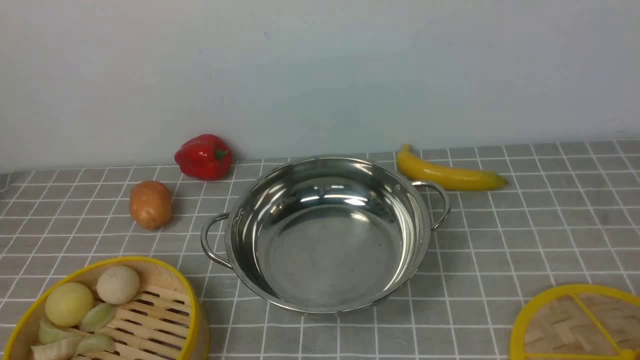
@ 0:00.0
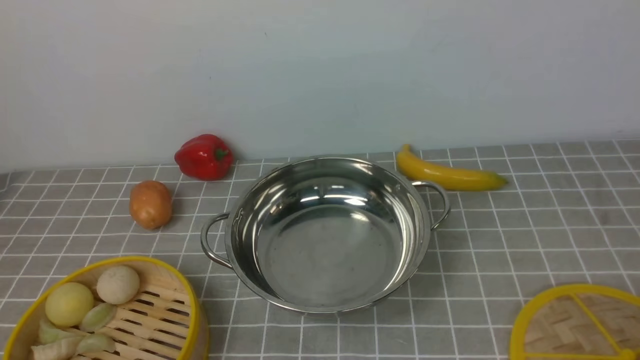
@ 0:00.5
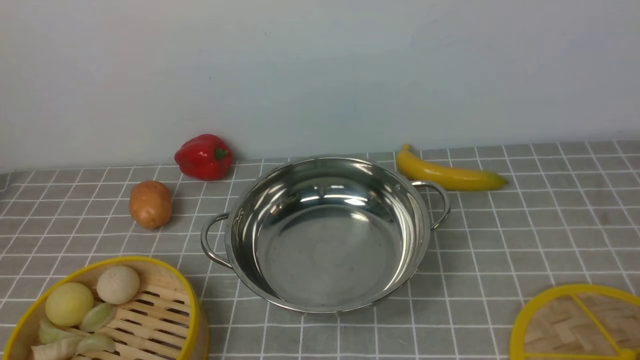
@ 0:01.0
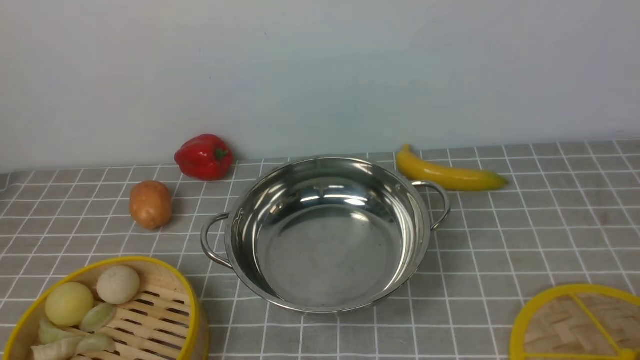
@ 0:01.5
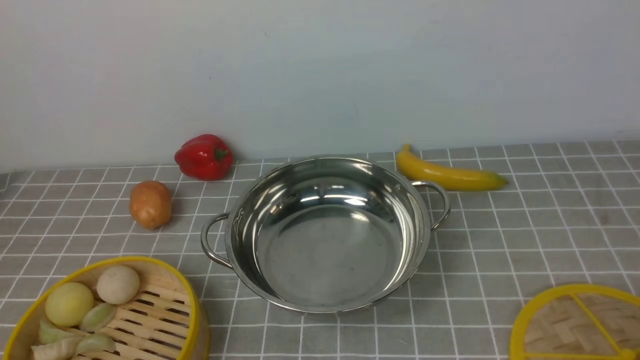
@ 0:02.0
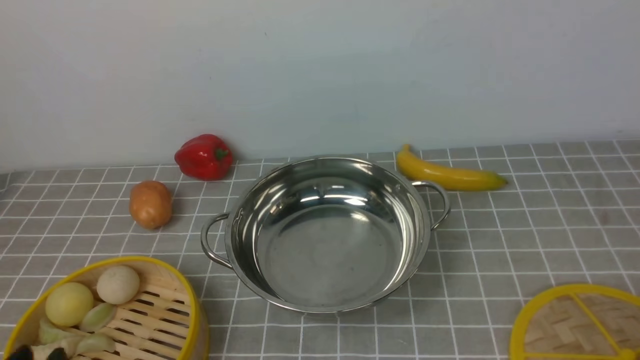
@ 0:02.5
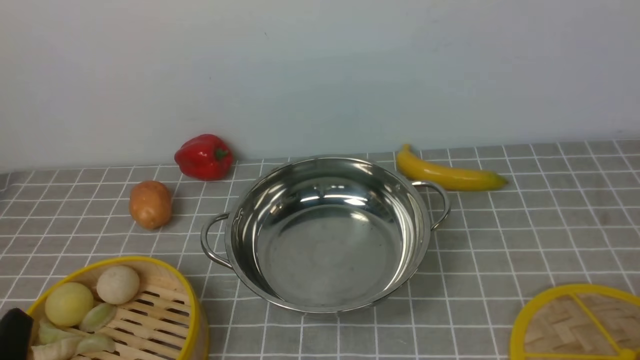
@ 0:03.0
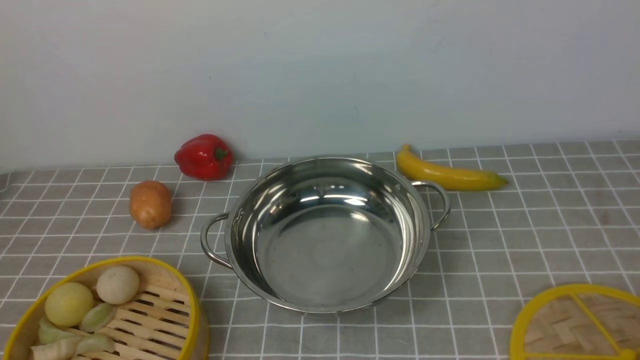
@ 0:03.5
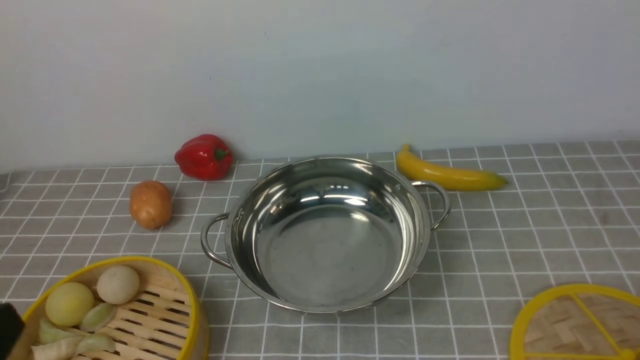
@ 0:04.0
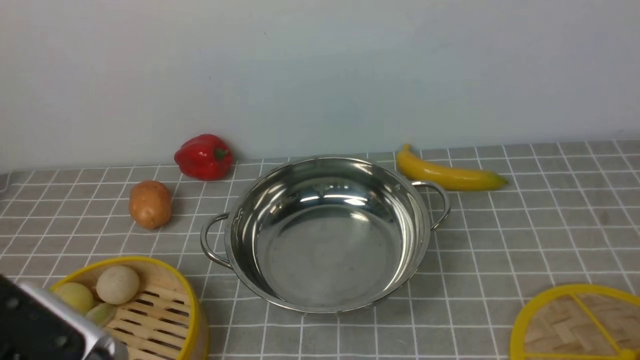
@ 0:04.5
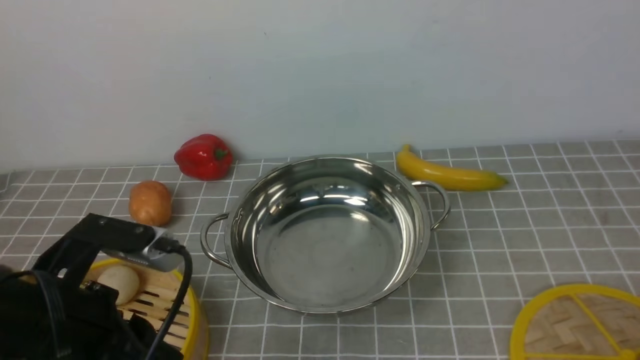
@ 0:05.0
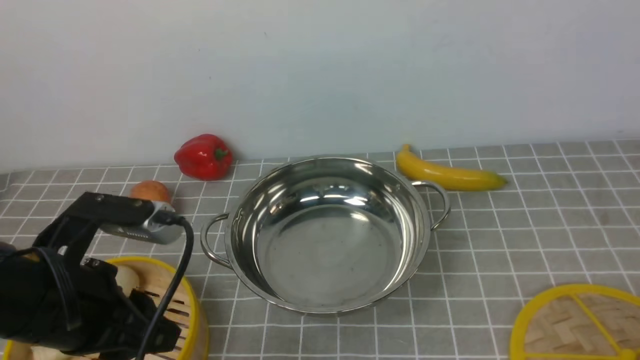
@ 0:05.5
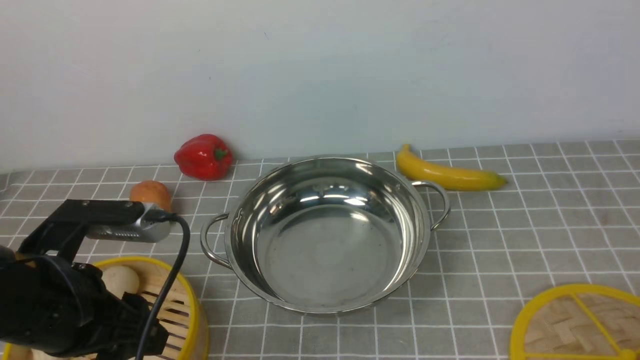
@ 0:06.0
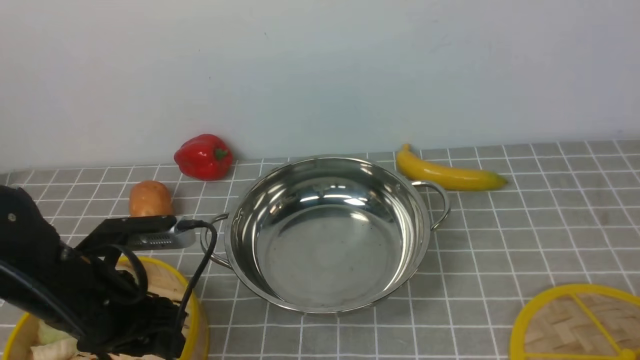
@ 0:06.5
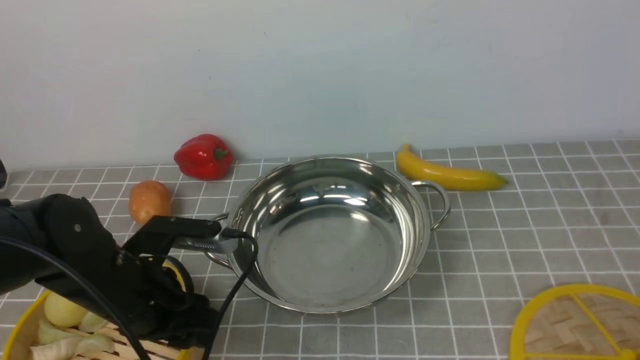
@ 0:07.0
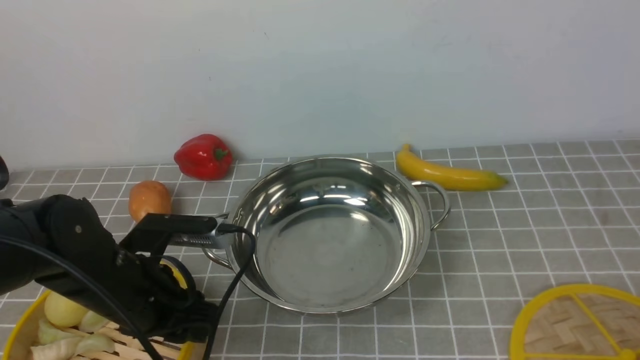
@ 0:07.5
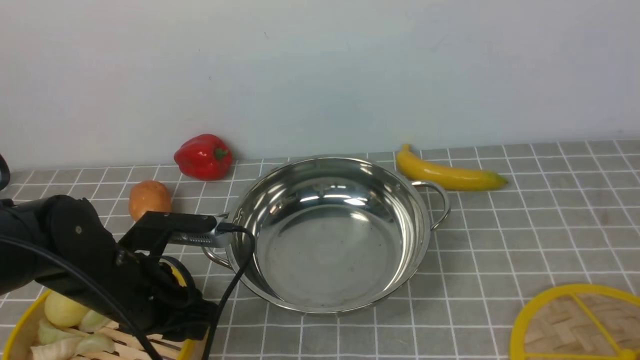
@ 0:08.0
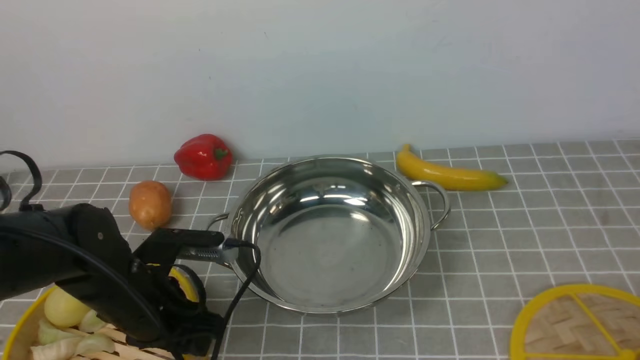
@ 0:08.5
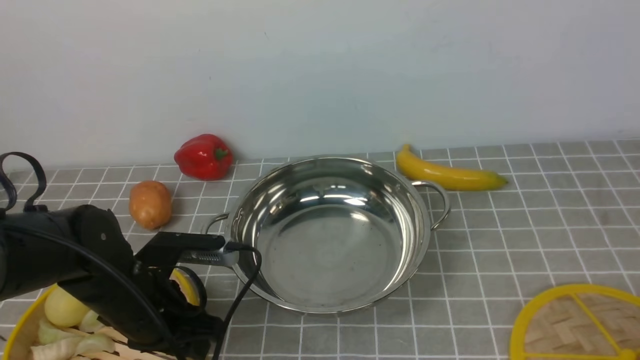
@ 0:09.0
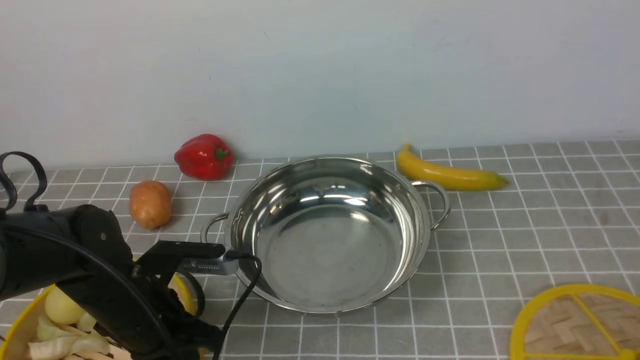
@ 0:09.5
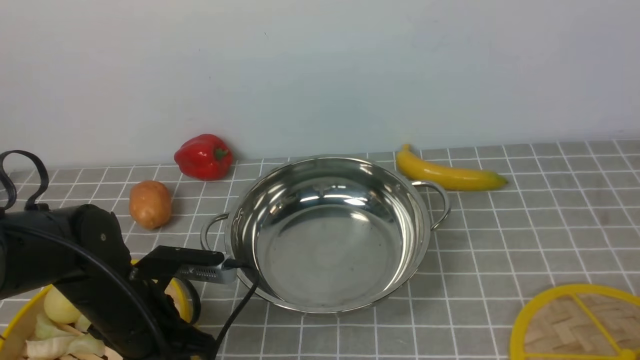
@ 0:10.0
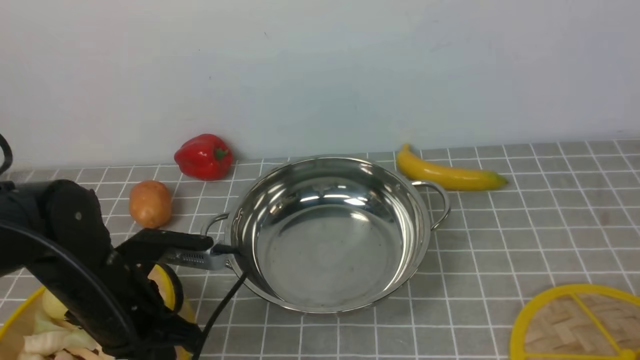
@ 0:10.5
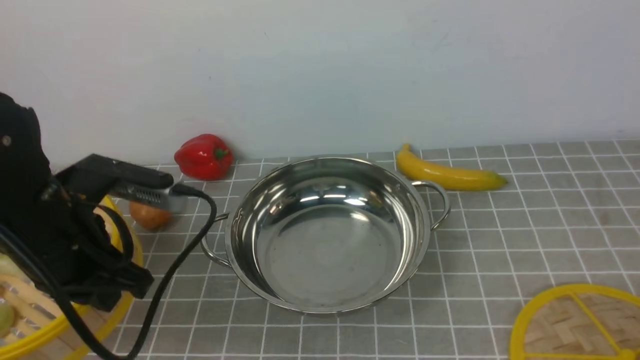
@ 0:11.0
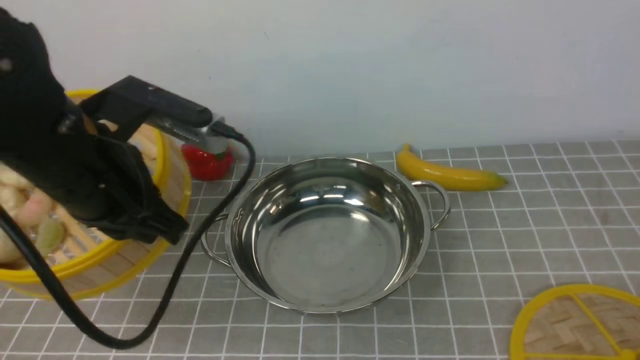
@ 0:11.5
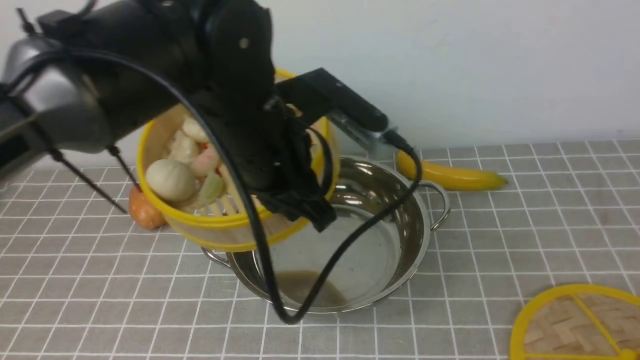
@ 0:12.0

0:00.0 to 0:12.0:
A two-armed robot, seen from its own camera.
Task of the whole recording: place the steamer in the pot on the grey tablecloth, and put the lid on the steamer.
Step, 0:00.0 to 0:10.5: use the left arm to lift the steamer closest to it.
0:04.0 to 0:06.0: The left gripper heads forward, covering about 15 cm, and opens.
0:06.0 to 0:08.0: The left gripper moves downward and forward, some 10 cm.
0:08.0 to 0:10.0: The left gripper closes.
0:10.0 to 0:12.0: The left gripper is displaced upward and to the right by roughly 20 cm.

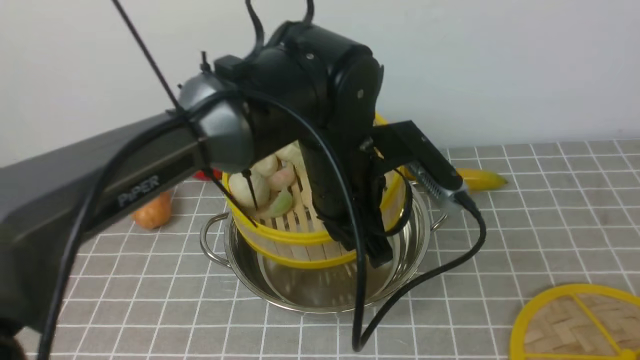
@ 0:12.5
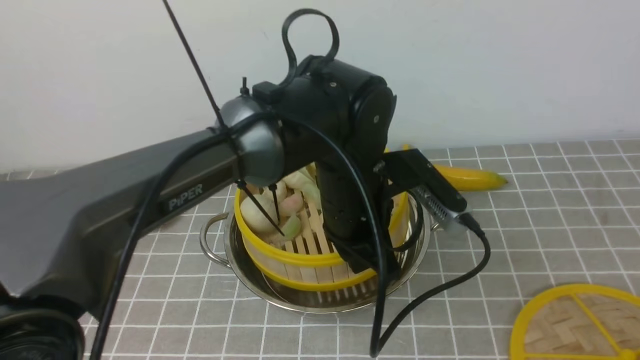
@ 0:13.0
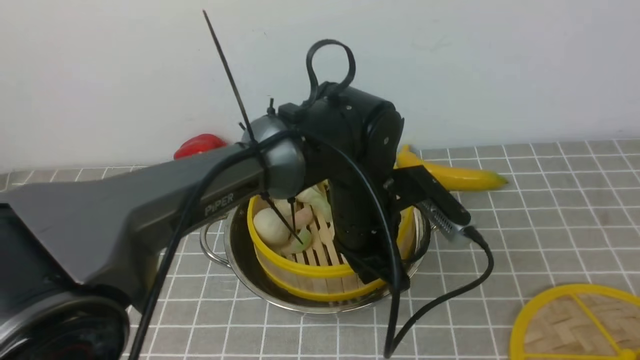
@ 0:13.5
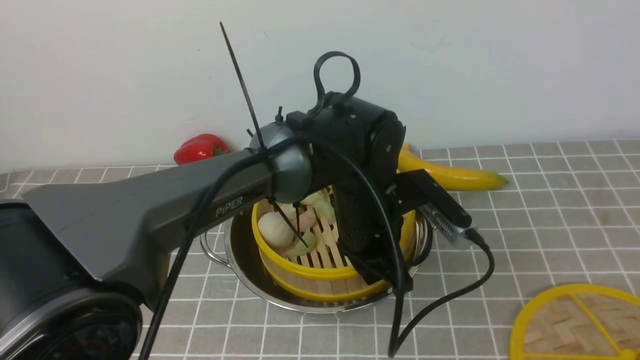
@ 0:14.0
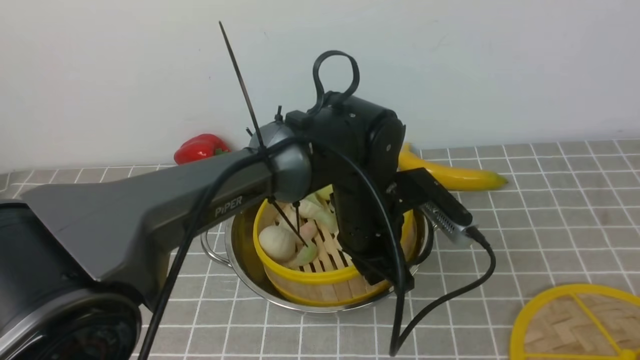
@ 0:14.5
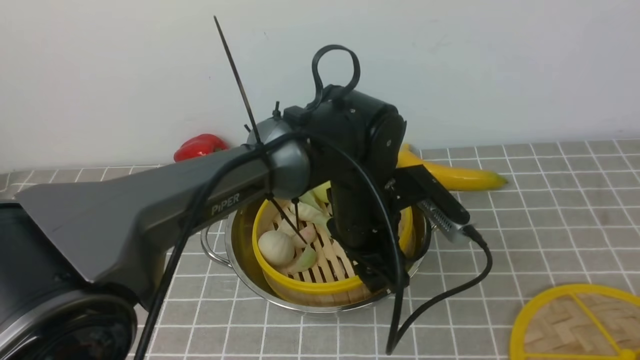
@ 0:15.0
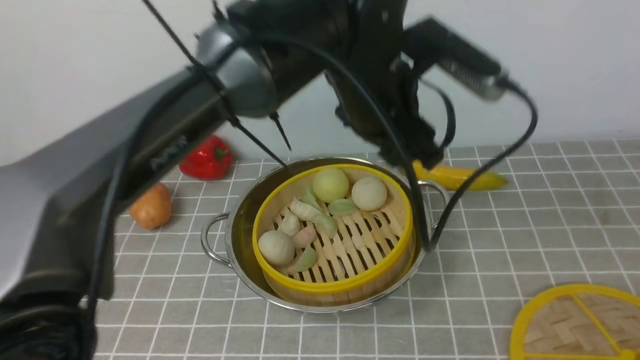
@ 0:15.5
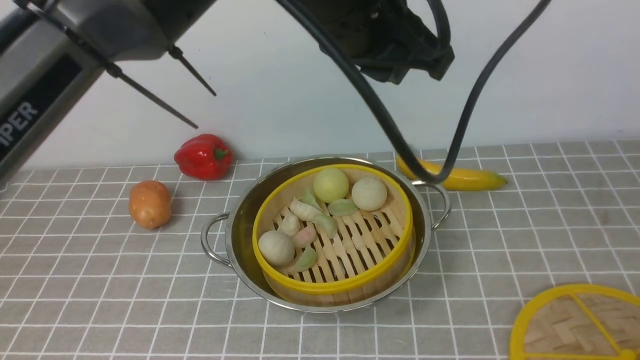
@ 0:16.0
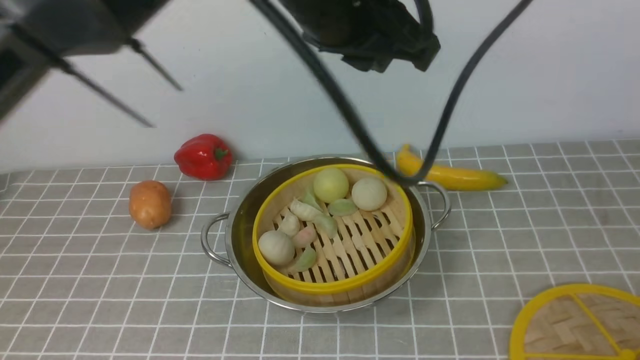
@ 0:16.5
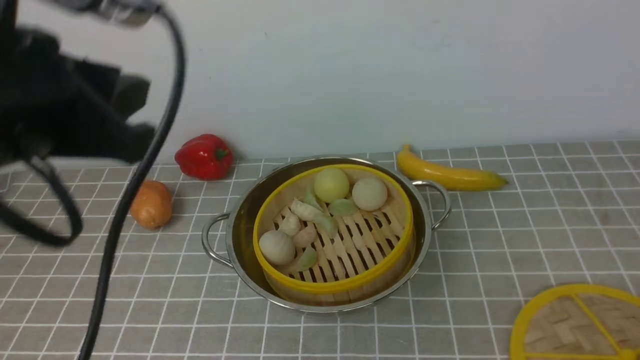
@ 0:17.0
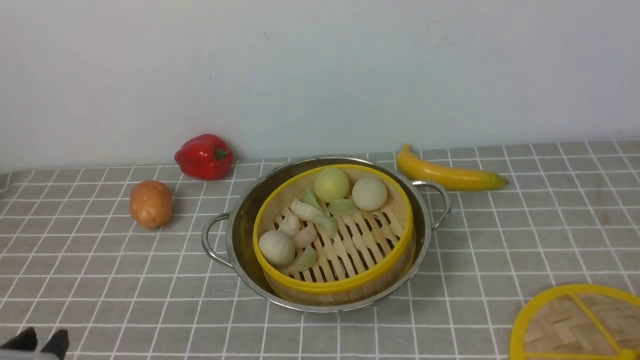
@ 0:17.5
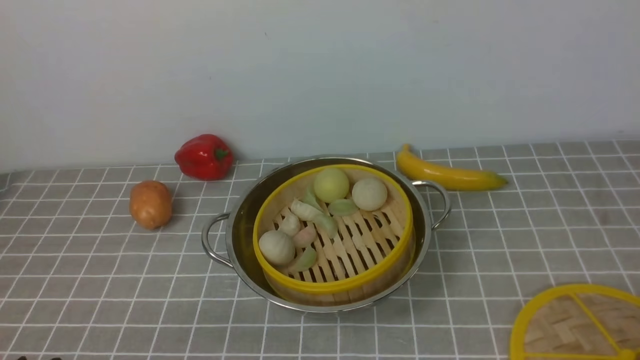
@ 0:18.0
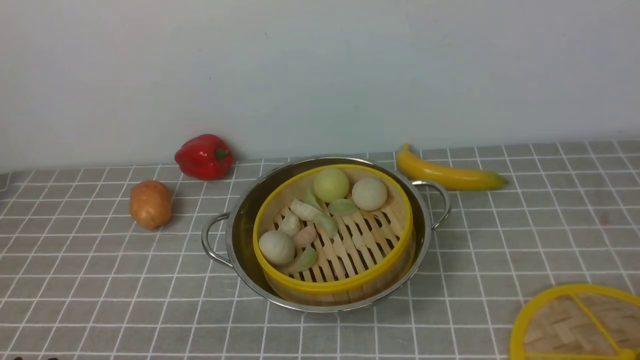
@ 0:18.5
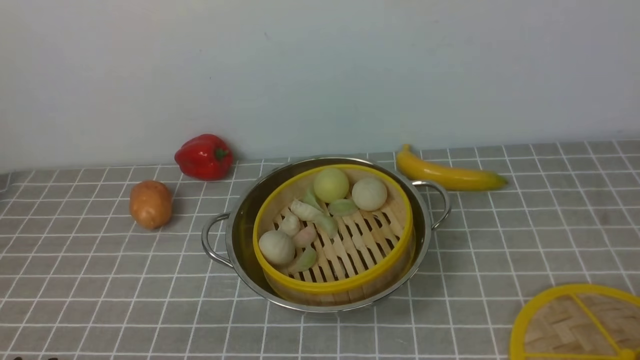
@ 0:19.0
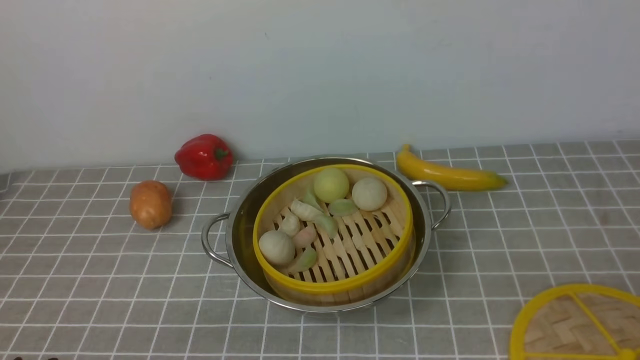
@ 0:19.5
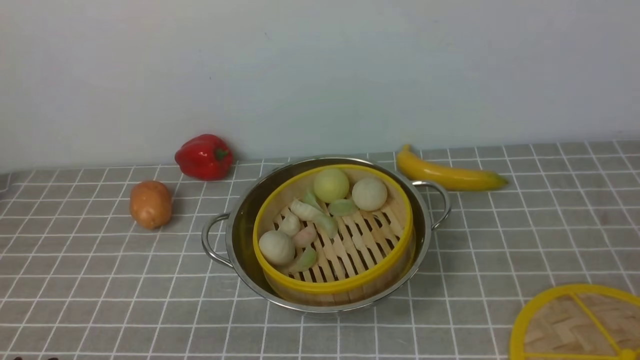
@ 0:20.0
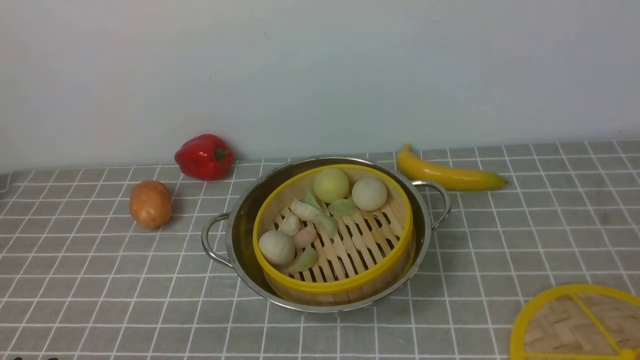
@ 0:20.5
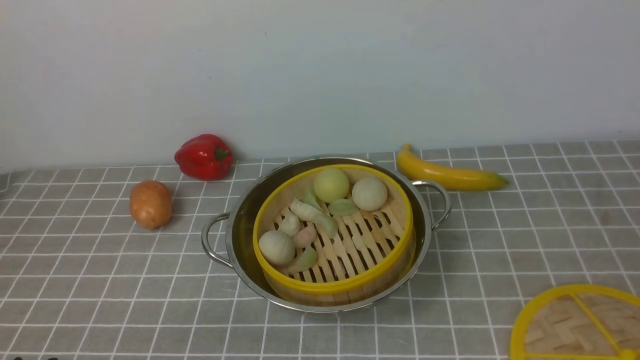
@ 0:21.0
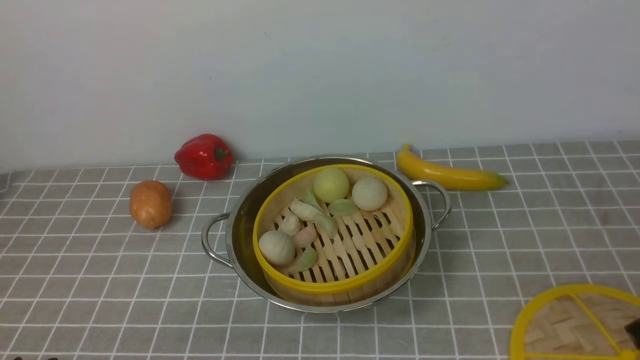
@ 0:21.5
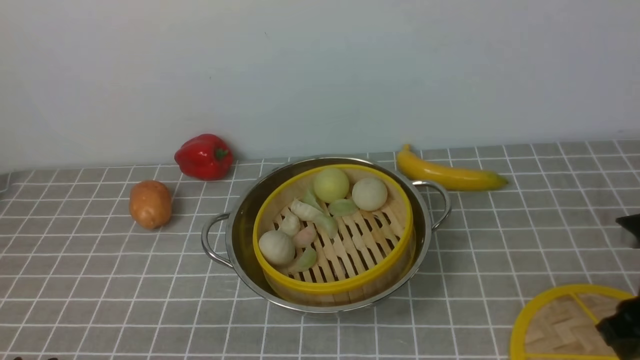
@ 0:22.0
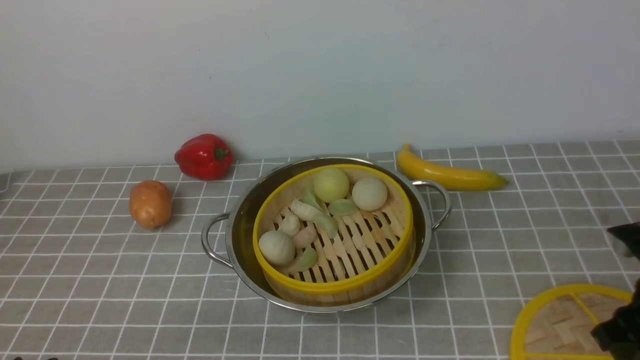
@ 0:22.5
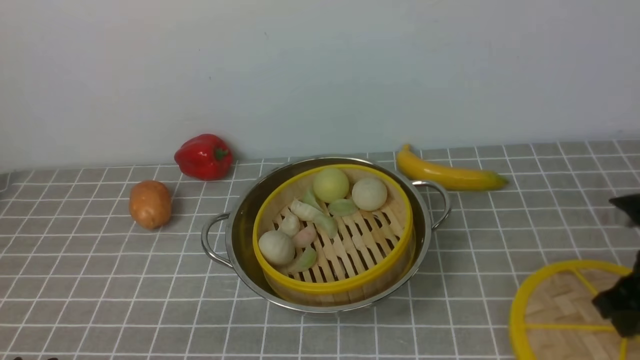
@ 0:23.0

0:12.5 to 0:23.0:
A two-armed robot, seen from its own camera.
Task of the whole recording: place the steamer in the pot on the grey tablecloth, and put the lid on the steamer.
Step, 0:12.5 to 0:15.0: use the left arm to put the steamer into the iron steamer pot in the middle.
Step, 0:15.5 to 0:22.5: use the right arm to lift the lid of the steamer.
0:12.5 to 0:14.5: The left gripper heads downward, covering approximately 10 cm.
0:14.5 to 0:16.5: The left gripper goes roughly 25 cm upward, and opens and closes again.
0:16.5 to 0:19.0: The left gripper goes about 40 cm downward, backward and to the left.
0:21.0 to 0:23.0: The right gripper is displaced forward and downward by roughly 15 cm, and closes its fingers.
